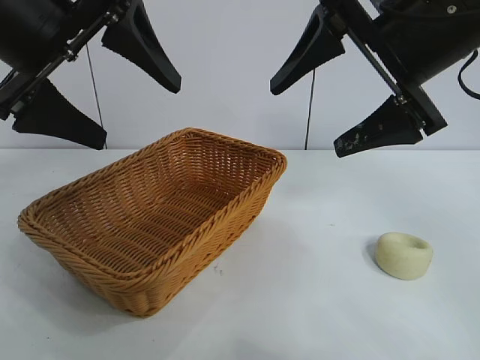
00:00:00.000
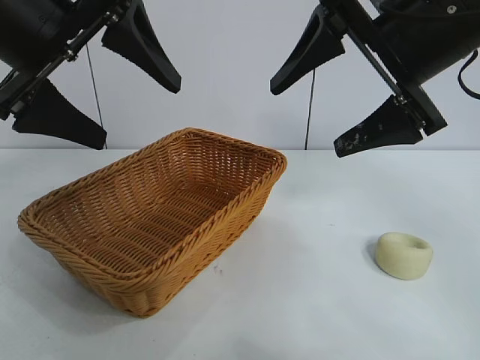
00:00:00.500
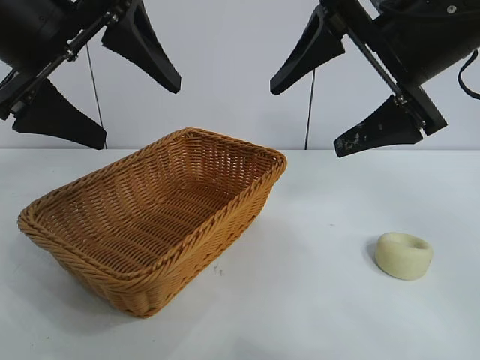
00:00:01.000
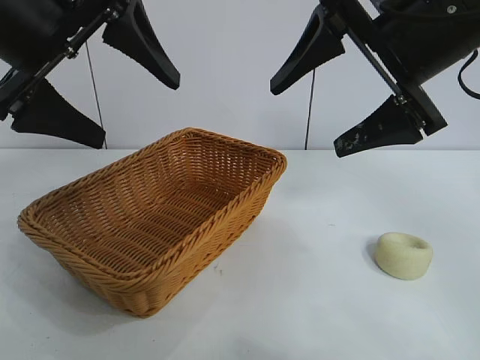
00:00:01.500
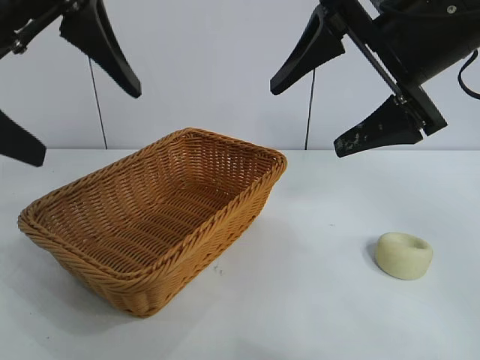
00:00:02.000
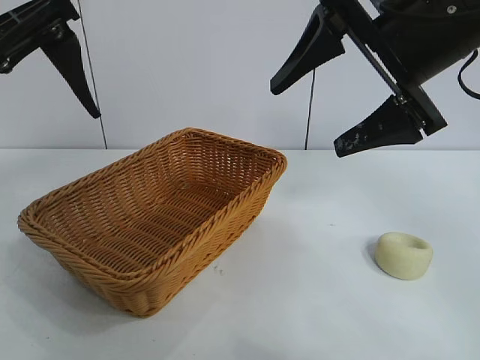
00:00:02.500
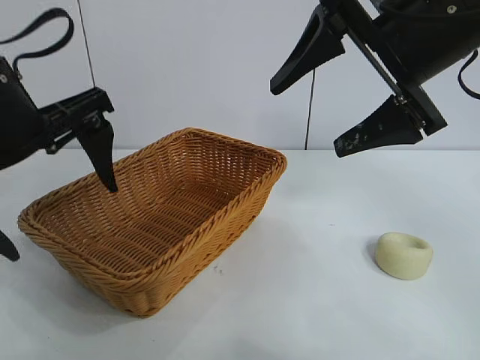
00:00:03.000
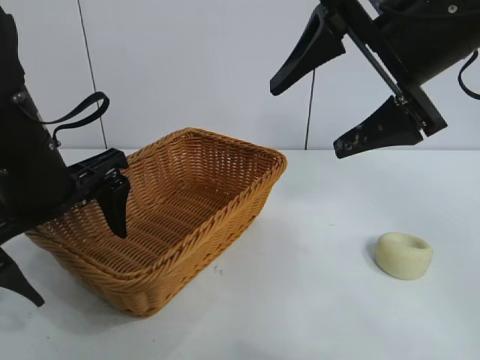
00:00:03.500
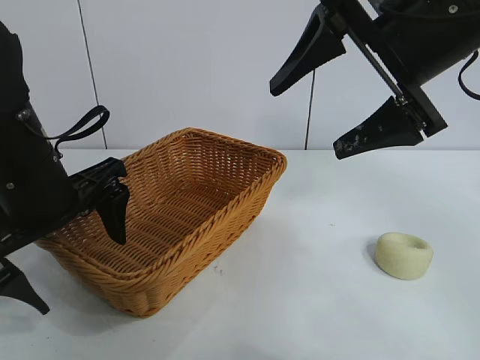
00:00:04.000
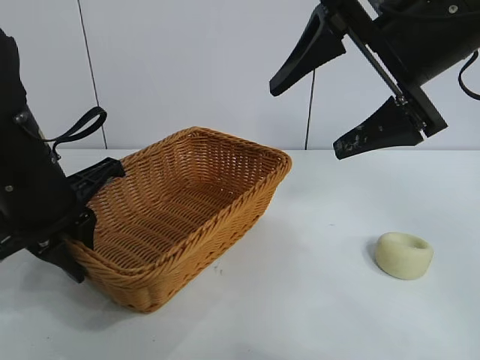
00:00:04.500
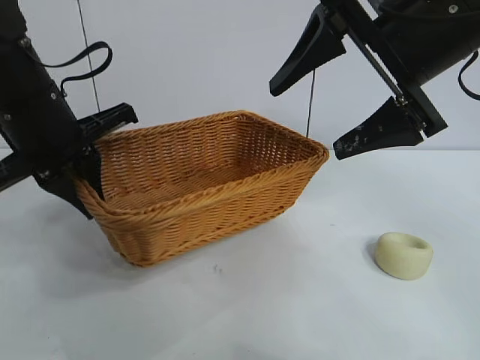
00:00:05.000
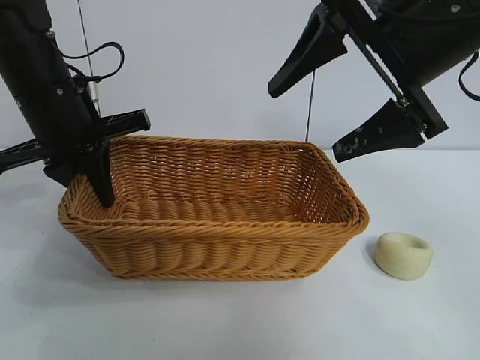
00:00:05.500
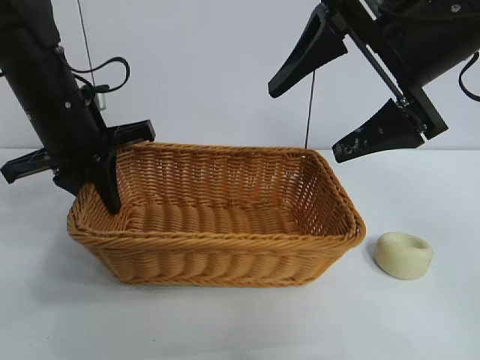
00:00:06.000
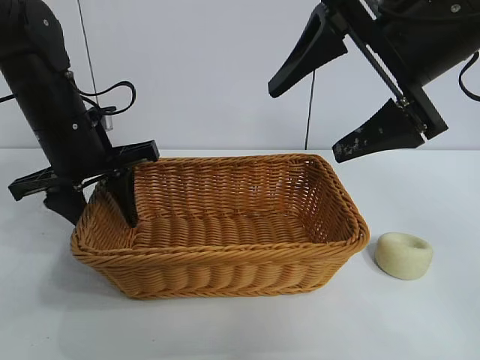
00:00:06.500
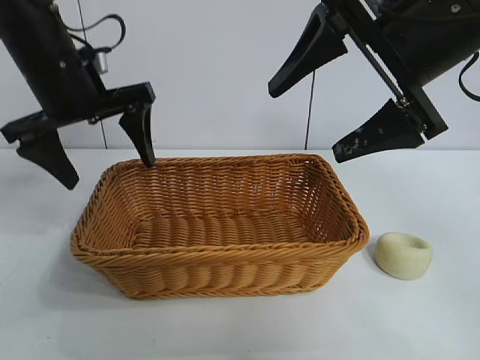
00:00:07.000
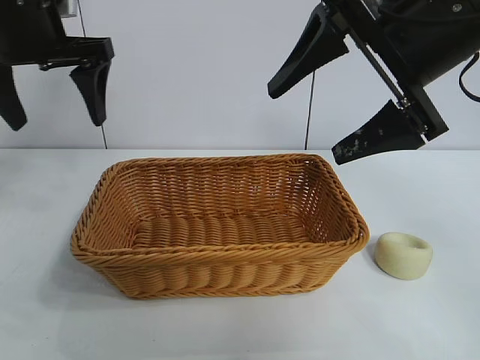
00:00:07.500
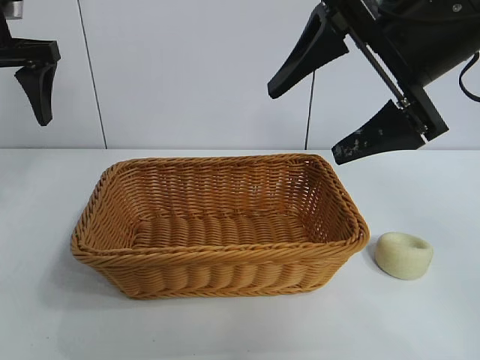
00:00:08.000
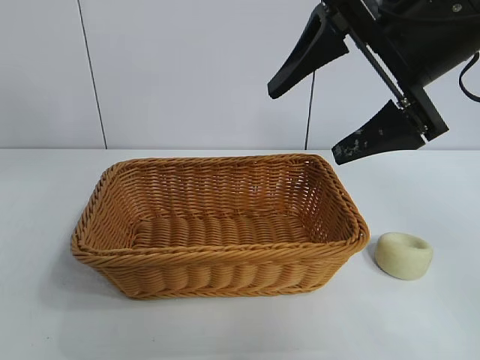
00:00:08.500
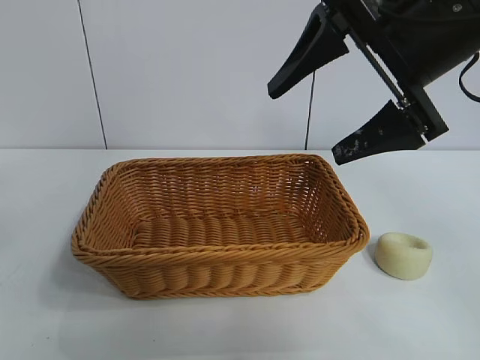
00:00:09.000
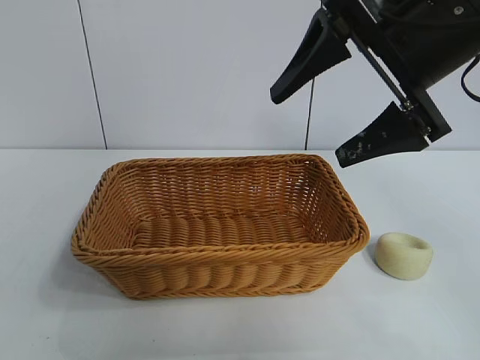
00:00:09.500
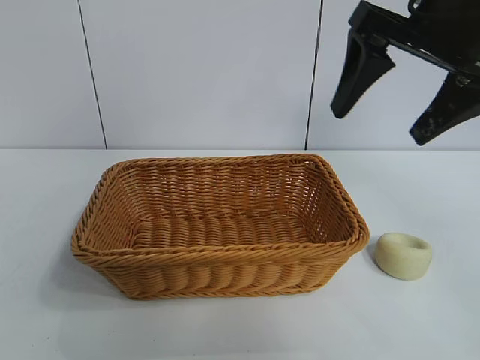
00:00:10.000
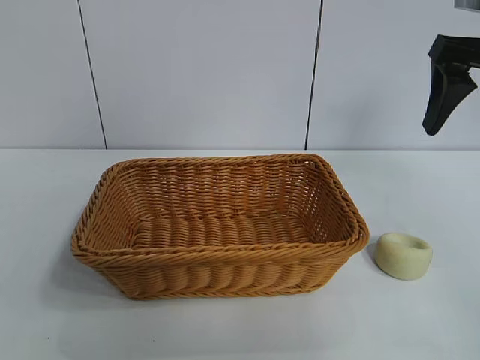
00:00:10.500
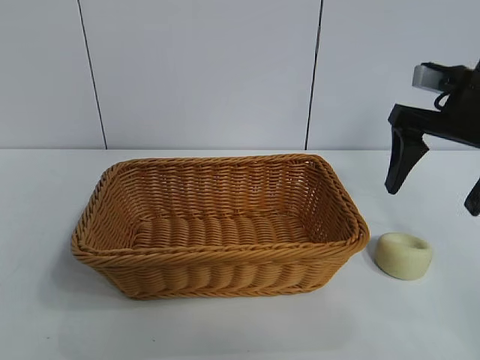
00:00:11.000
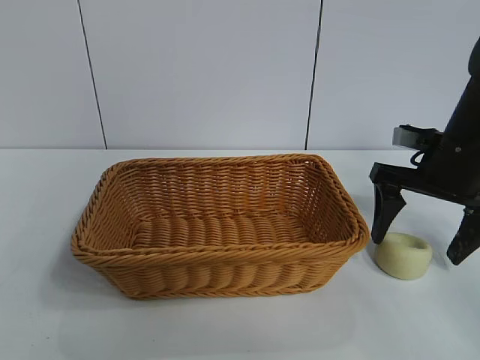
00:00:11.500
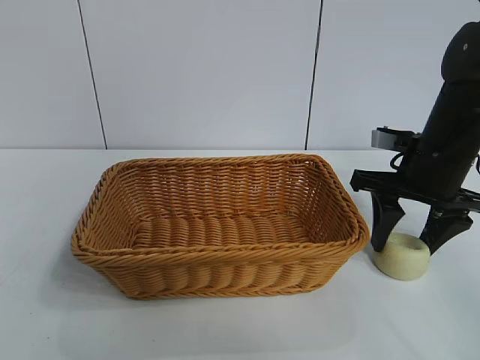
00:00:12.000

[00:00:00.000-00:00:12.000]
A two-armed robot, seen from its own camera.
Task of the whole recording: pick up the egg yolk pastry and put it into the basket.
Step, 00:00:01.500 to 00:00:04.000: Grasp the basket with left gripper.
Step, 00:00:05.000 to 00:00:06.500: Place the basket in the center of view with left gripper.

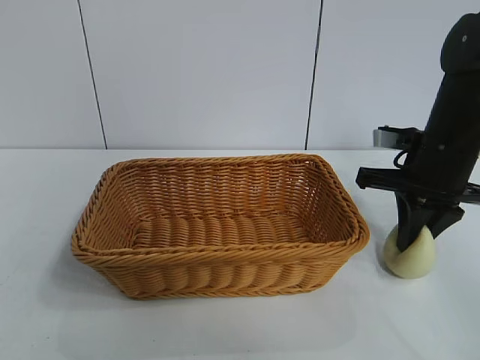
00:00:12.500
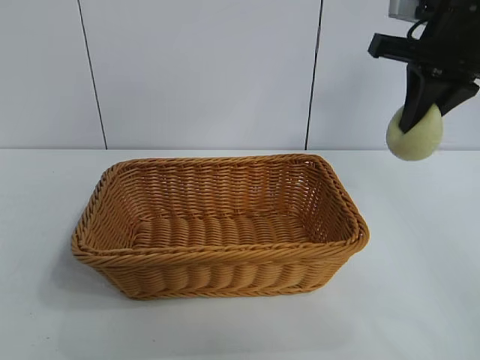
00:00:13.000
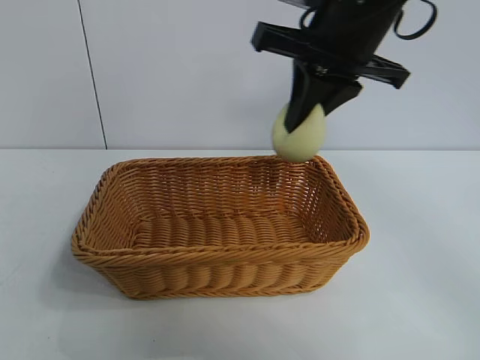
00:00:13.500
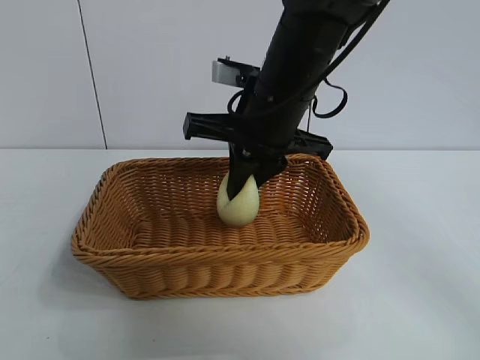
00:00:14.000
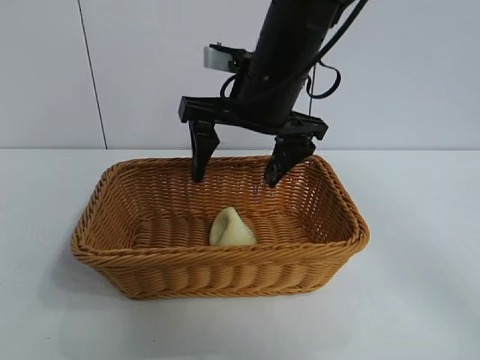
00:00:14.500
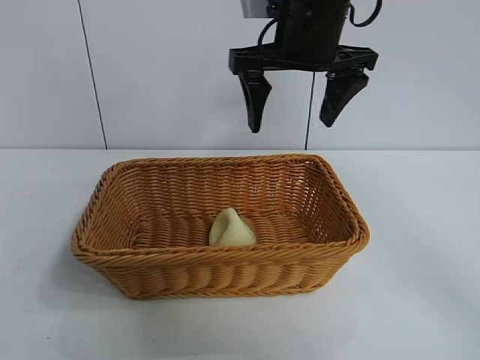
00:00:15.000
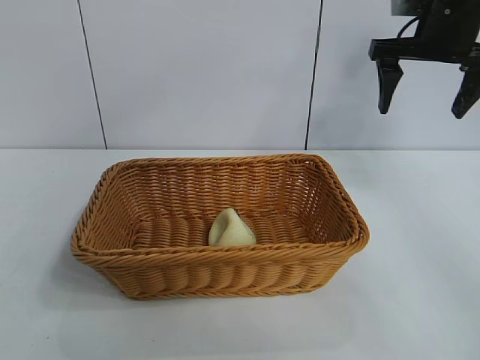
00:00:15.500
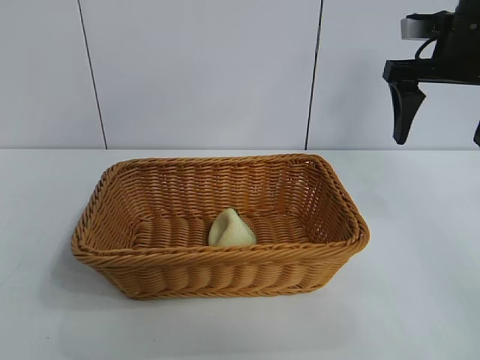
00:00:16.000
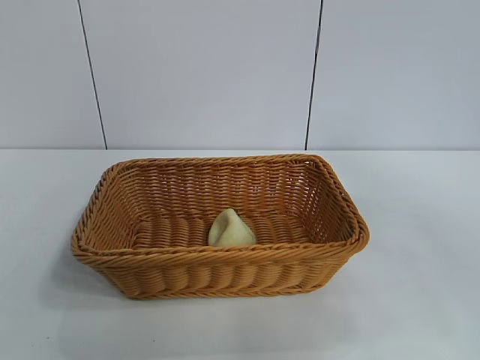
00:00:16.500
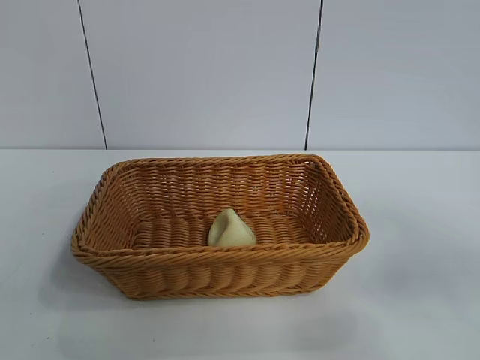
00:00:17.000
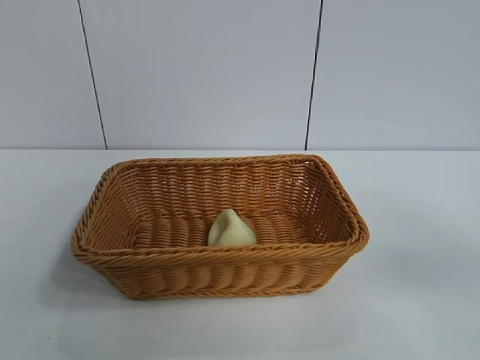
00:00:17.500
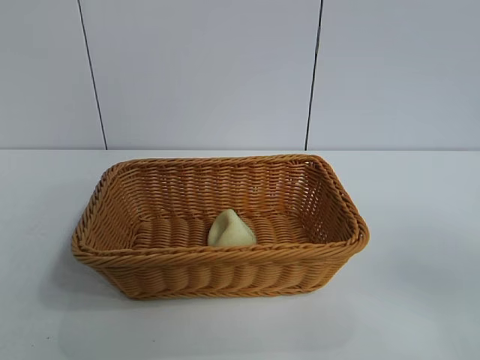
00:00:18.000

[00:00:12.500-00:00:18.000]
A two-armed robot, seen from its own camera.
Task of the whole recording: pick up the egg yolk pastry and put it into the basket.
Step, 00:00:12.500 to 00:00:14.000: Place the egg yolk pastry in the basket with right gripper.

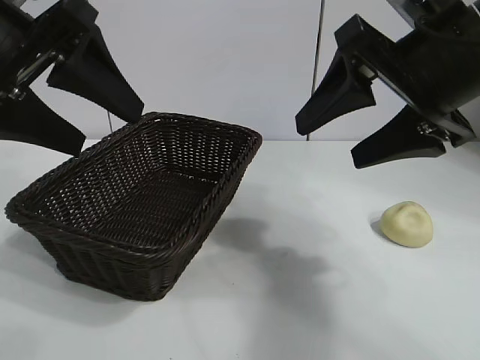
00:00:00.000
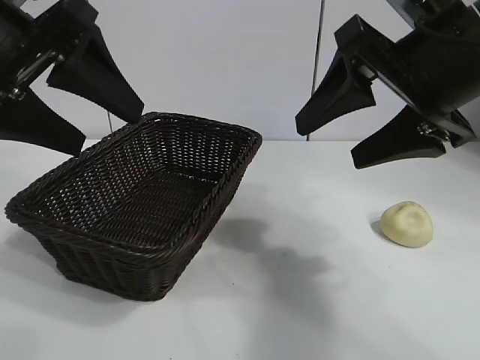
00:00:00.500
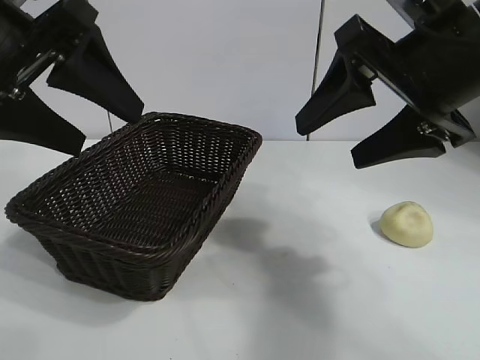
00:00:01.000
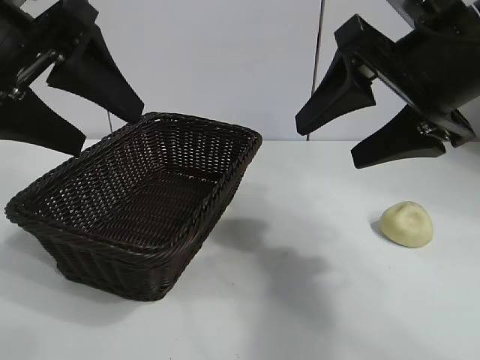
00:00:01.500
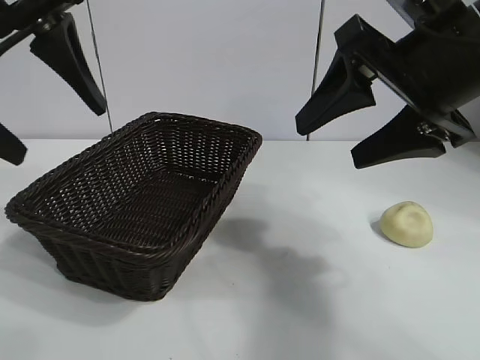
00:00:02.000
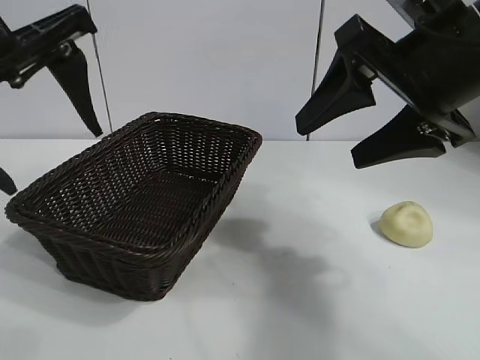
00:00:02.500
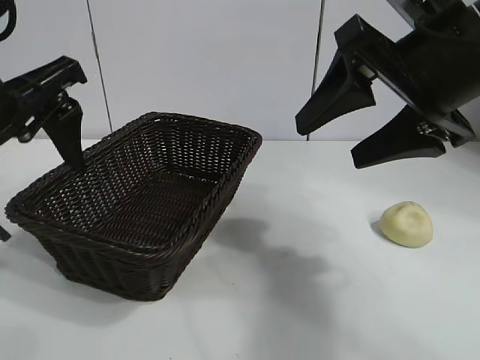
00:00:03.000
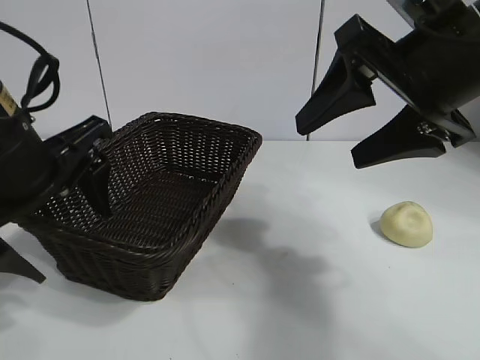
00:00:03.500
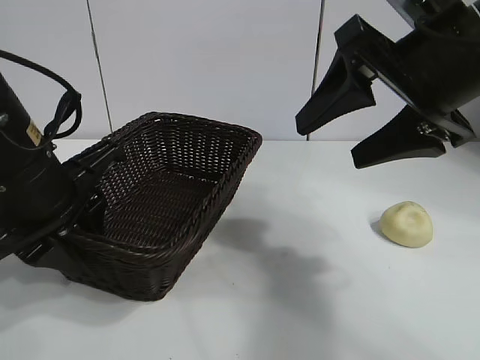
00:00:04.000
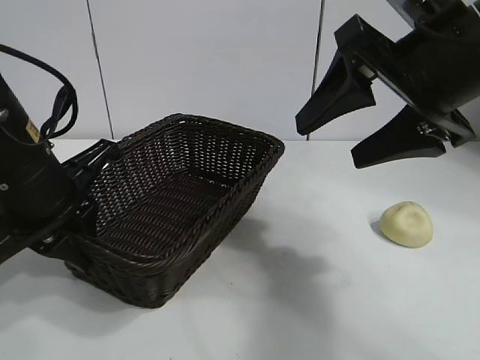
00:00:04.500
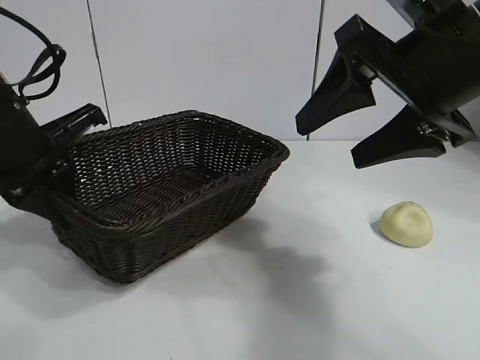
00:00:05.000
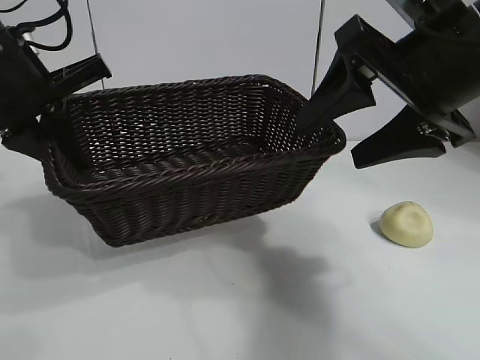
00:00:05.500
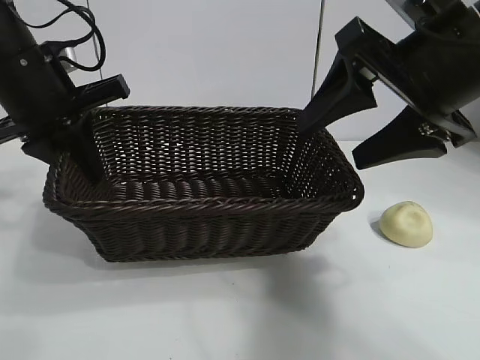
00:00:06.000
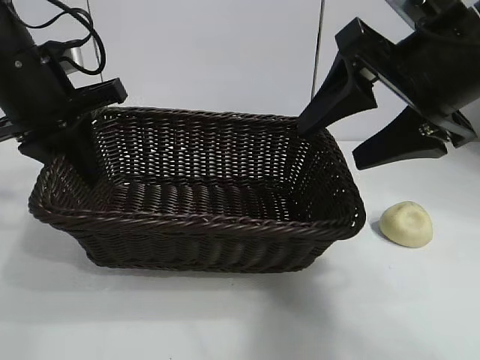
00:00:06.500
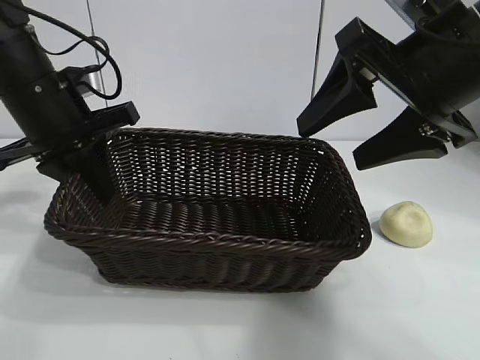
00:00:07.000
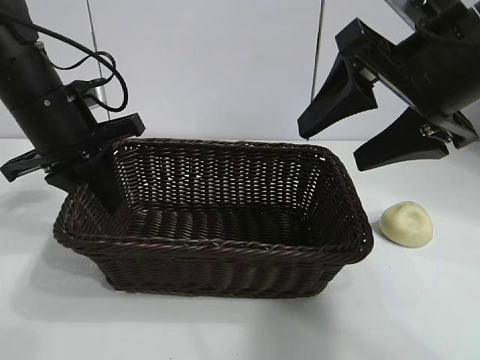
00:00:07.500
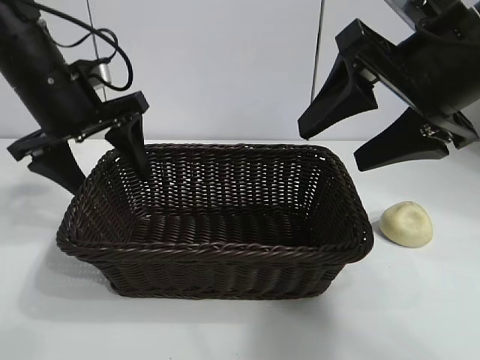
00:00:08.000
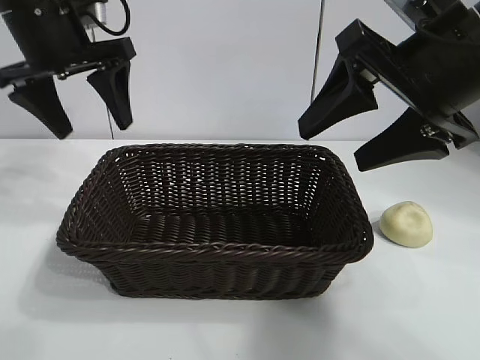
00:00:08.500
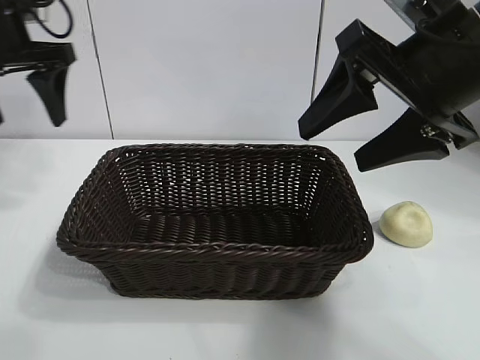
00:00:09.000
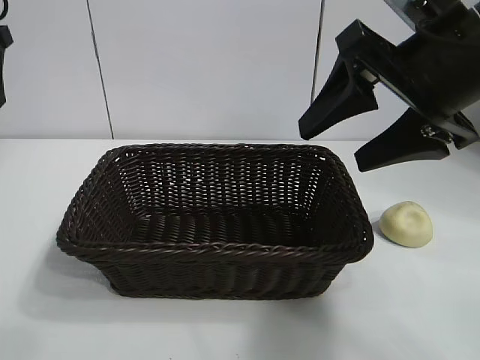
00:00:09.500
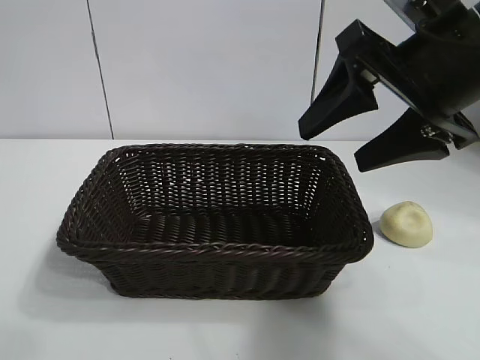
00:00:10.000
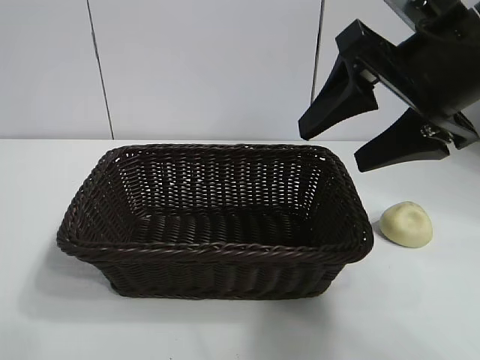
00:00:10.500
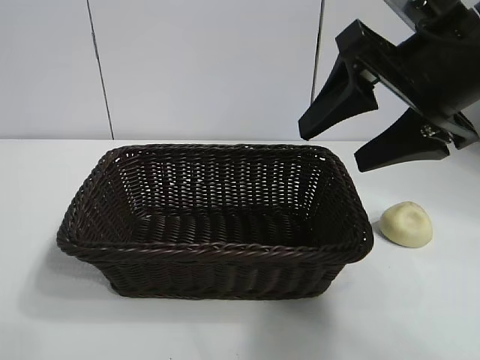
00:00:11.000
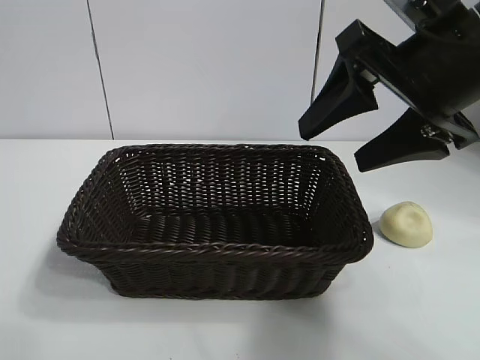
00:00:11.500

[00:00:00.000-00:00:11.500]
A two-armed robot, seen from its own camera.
Task of the whole recording: pick up the egg yolk pastry and put it into the basket.
Step, 00:00:01.500 to 00:00:04.000: Grasp the basket with left gripper.
Step, 00:00:04.500 to 00:00:07.500: Place the basket in the center of view with left gripper.
